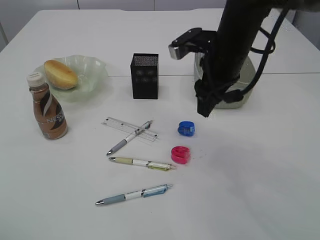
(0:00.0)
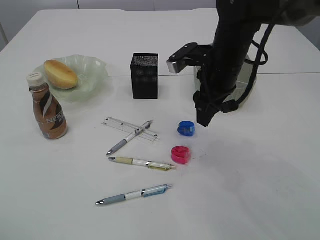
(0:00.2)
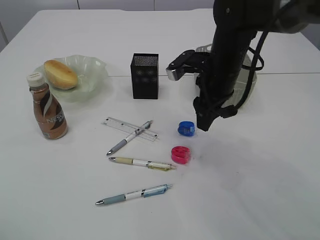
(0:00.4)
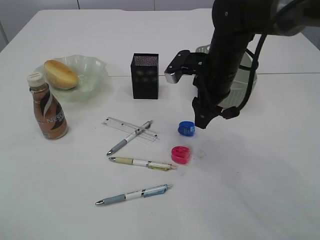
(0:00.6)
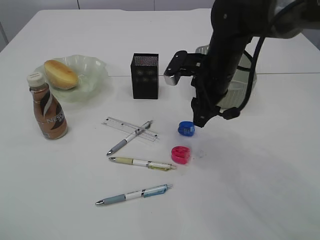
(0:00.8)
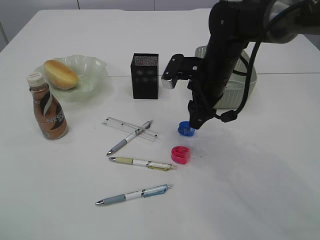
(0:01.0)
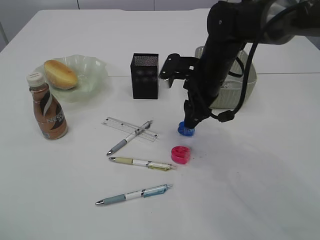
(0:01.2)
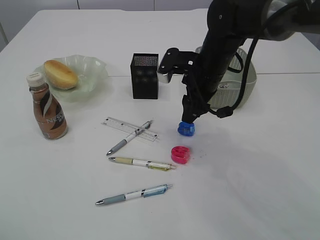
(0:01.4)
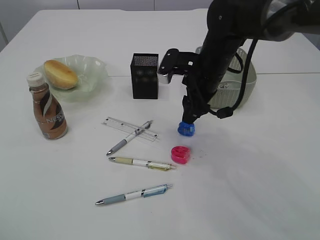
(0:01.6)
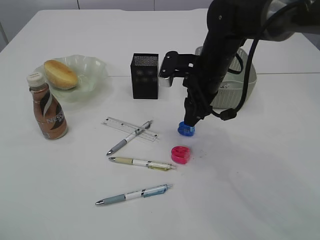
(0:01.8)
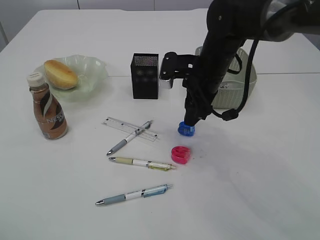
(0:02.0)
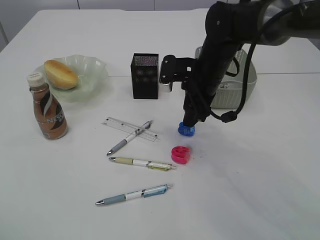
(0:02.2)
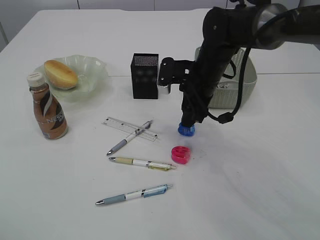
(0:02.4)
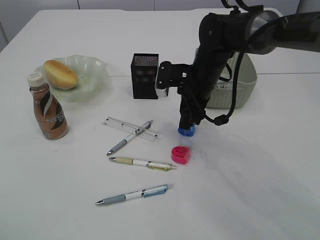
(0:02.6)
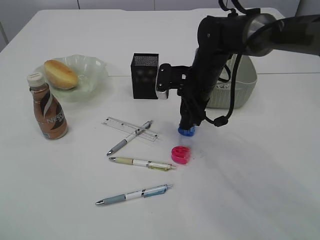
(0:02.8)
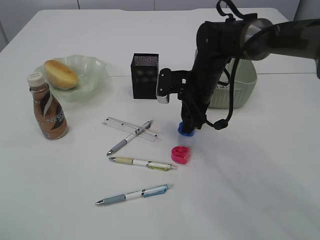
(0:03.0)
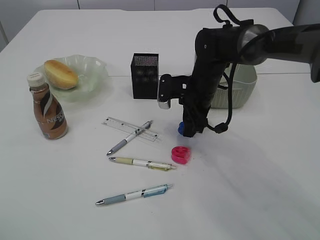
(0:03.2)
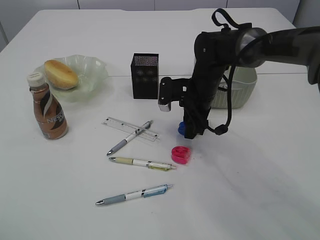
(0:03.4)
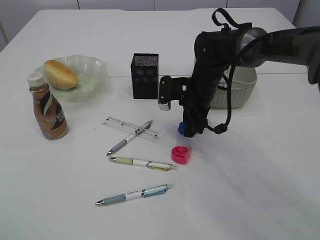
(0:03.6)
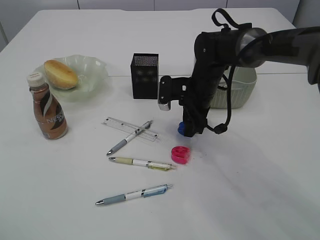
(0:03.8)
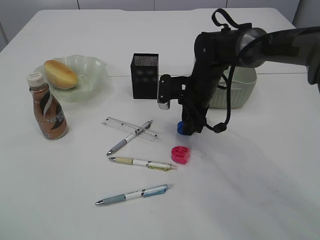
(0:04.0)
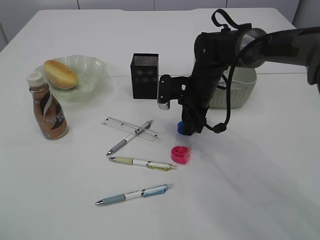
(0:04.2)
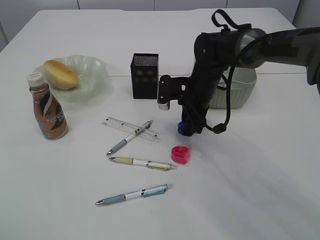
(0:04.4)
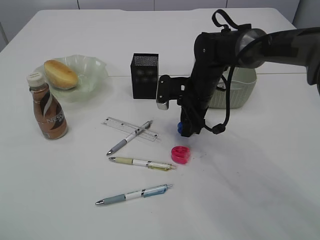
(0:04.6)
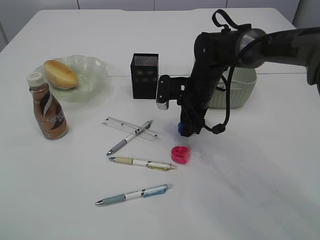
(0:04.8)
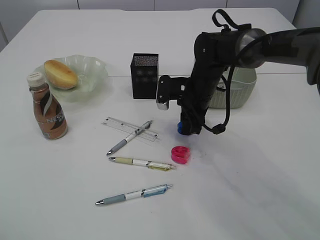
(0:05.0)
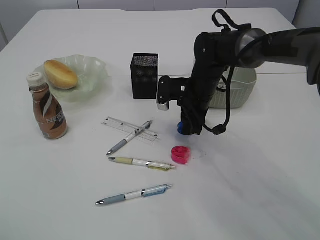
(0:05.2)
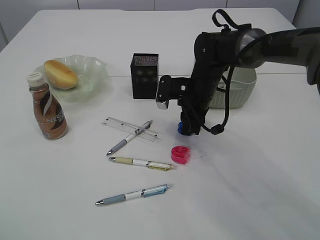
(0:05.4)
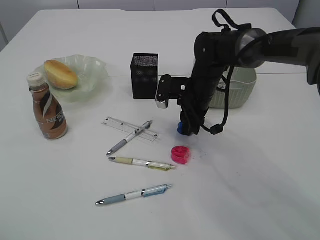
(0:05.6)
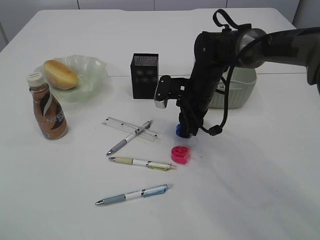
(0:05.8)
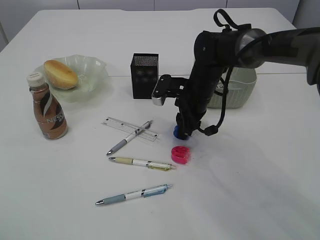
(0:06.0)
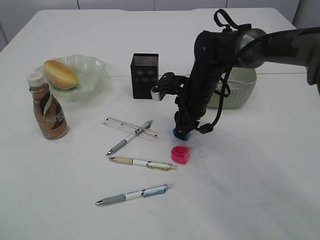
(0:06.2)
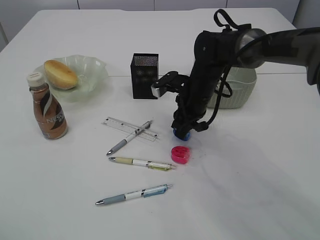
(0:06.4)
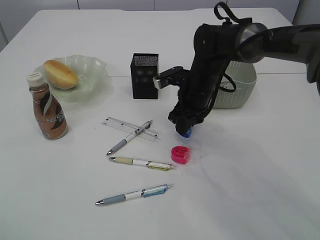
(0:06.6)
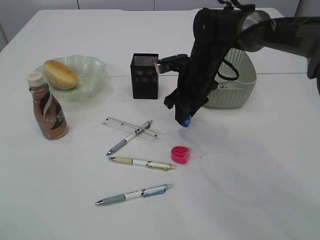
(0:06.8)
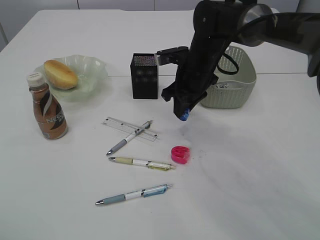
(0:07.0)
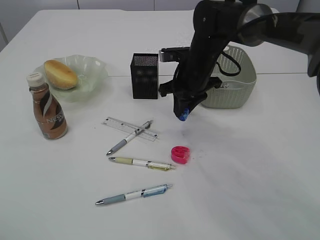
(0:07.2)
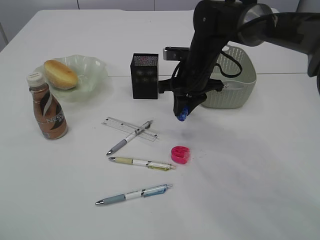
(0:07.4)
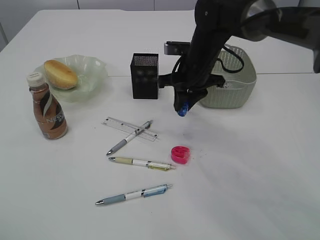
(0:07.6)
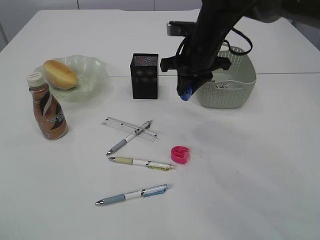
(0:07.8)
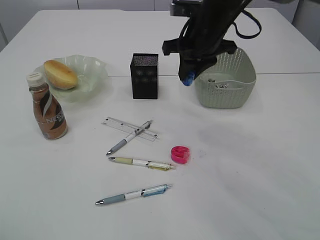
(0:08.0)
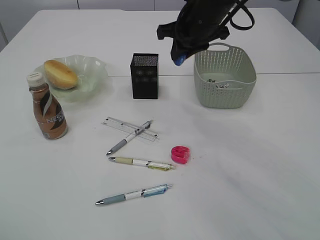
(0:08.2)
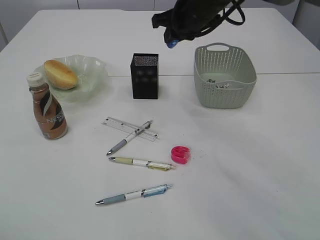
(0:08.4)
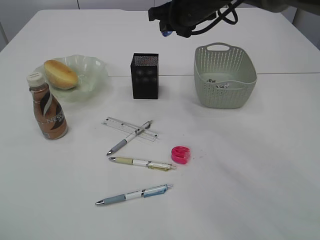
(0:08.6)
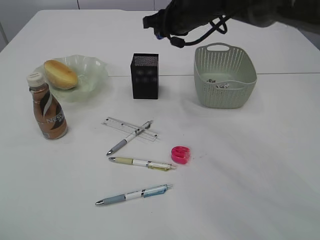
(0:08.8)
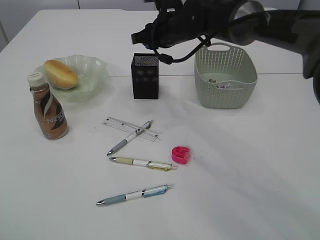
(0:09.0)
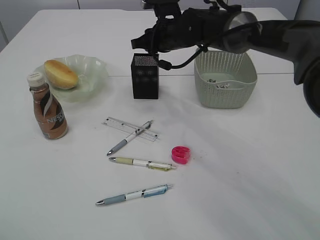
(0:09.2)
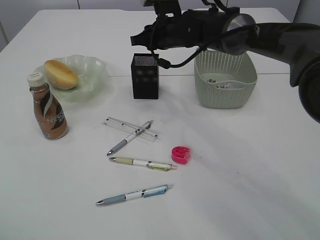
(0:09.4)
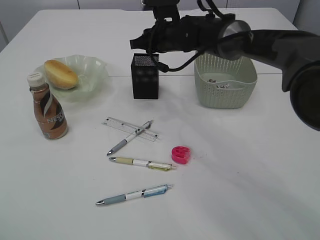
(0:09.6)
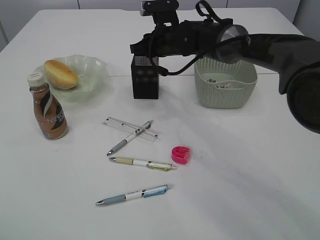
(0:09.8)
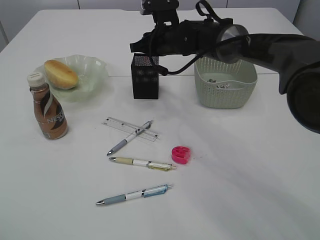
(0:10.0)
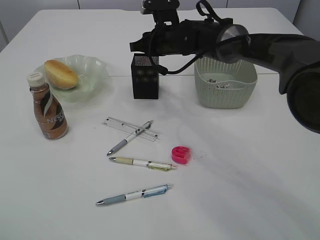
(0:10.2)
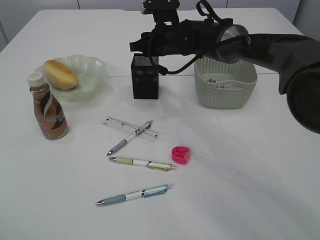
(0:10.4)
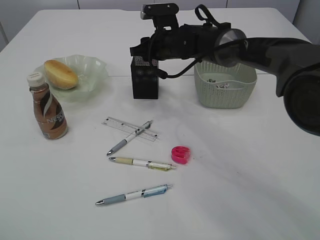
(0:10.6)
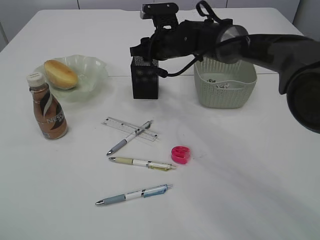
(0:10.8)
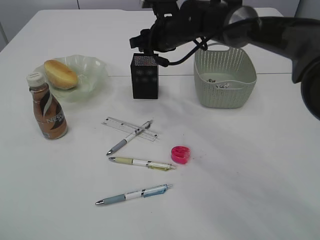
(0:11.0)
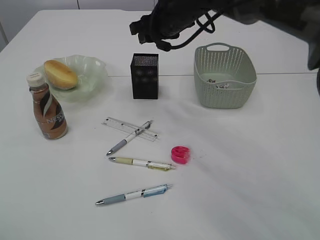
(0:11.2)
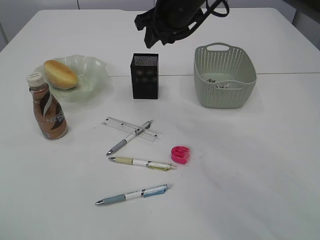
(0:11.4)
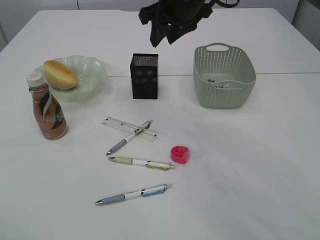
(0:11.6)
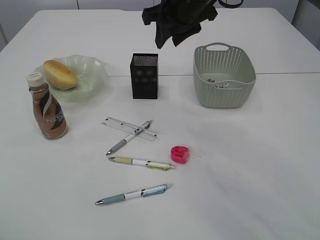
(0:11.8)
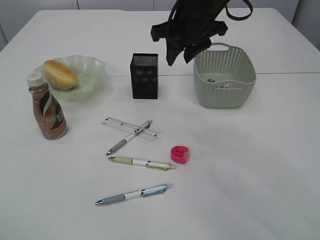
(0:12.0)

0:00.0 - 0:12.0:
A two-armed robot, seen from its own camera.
Step, 0:00.0 - 0:07.0: Pick up the blue pencil sharpener.
Step, 0:07.2 - 0:11.0: Place the blue pencil sharpener into the pen holder.
0:00.0 - 0:01.6: The right gripper moves downward, about 5 cm.
0:01.6 - 0:03.0: The right gripper moves about 5 cm.
0:03.0 - 0:04.4: The grippers stay close to where they were, moving slightly.
0:04.4 - 0:06.0: The right gripper closes.
0:06.0 - 0:07.6: The right gripper is displaced upward by about 5 cm.
0:07.6 - 0:09.0: The right gripper moves forward, approximately 5 cm.
0:09.0 - 0:10.4: The grippers move only a little.
0:10.4 - 0:12.0: The right gripper heads upward and backward, covering about 15 cm.

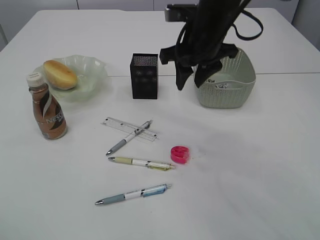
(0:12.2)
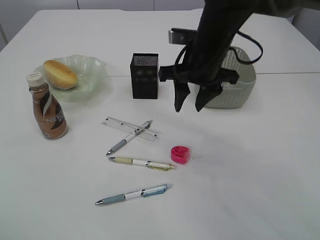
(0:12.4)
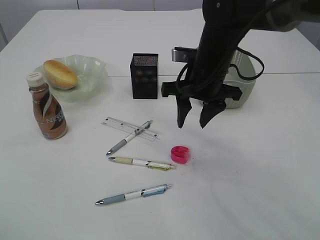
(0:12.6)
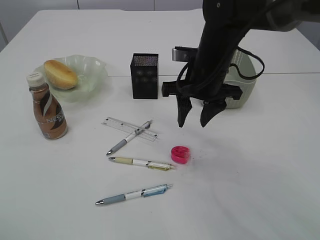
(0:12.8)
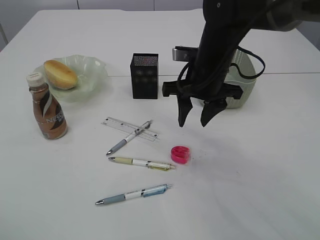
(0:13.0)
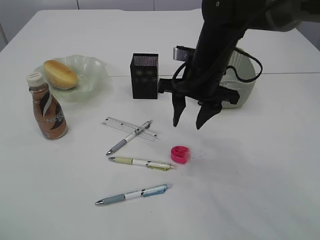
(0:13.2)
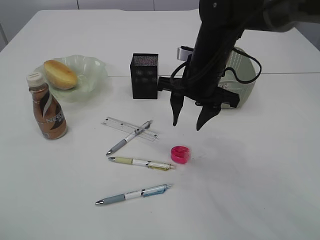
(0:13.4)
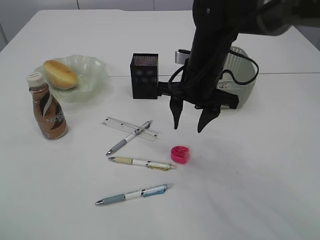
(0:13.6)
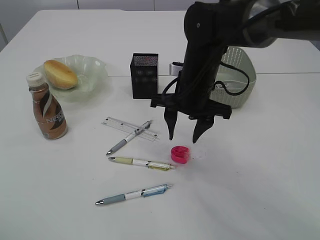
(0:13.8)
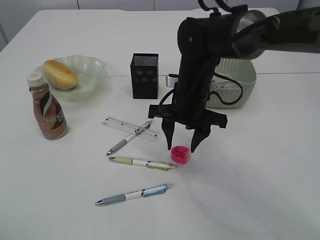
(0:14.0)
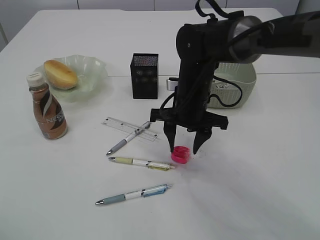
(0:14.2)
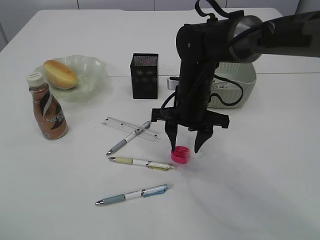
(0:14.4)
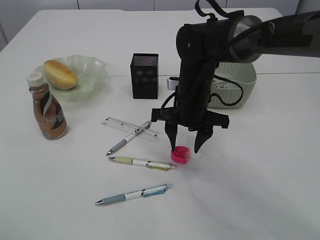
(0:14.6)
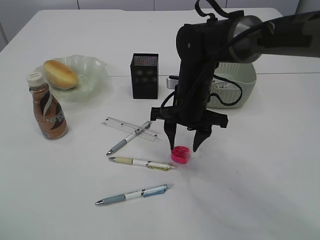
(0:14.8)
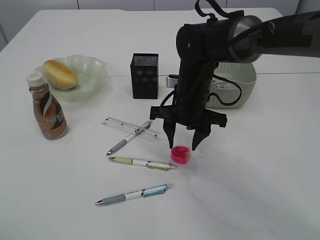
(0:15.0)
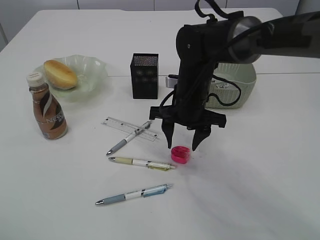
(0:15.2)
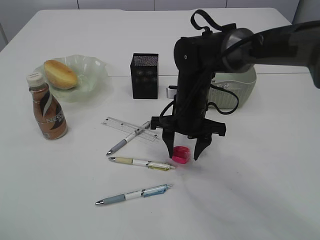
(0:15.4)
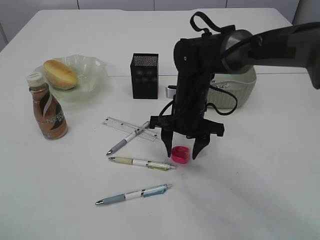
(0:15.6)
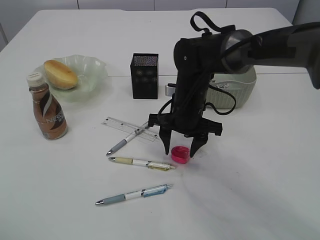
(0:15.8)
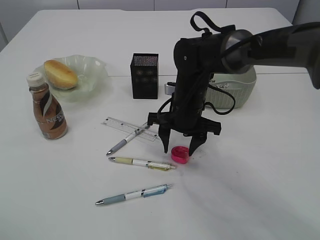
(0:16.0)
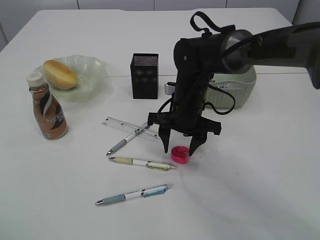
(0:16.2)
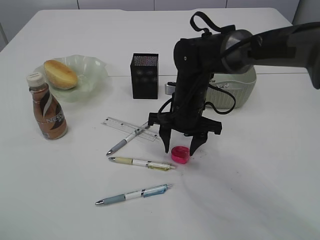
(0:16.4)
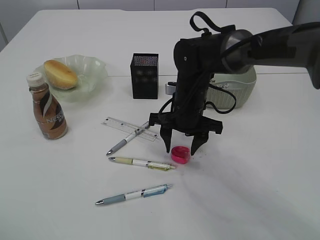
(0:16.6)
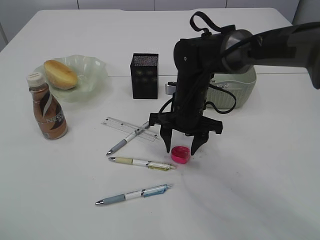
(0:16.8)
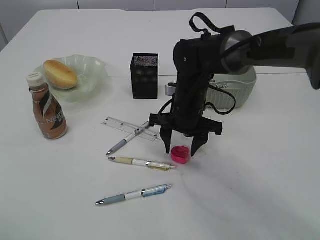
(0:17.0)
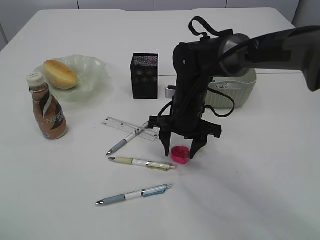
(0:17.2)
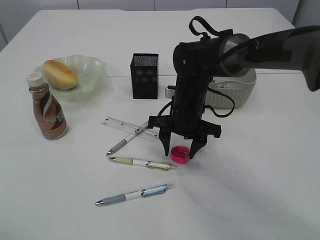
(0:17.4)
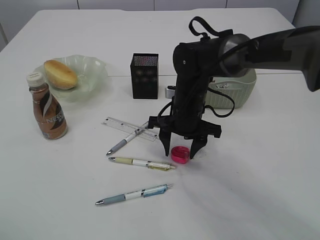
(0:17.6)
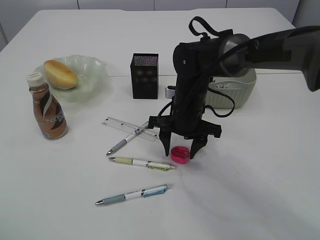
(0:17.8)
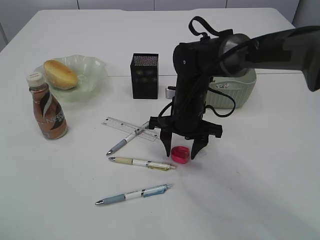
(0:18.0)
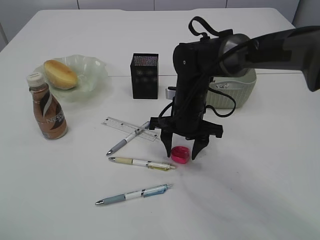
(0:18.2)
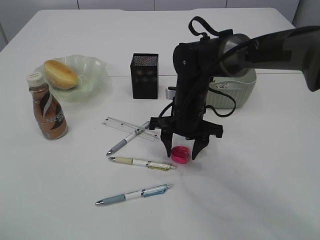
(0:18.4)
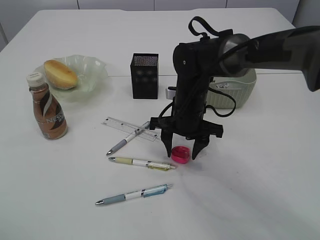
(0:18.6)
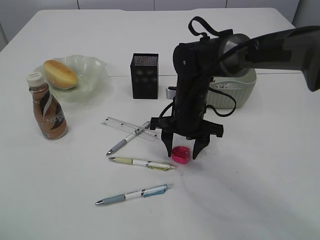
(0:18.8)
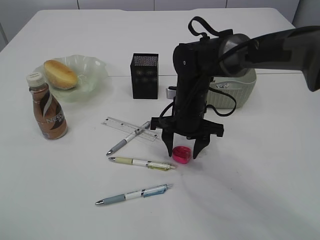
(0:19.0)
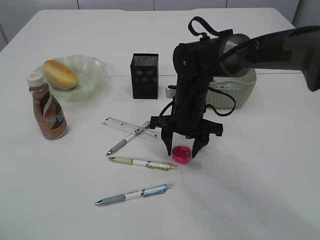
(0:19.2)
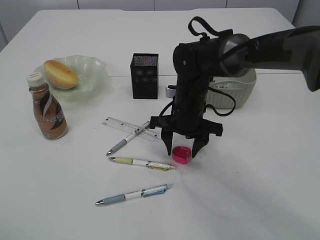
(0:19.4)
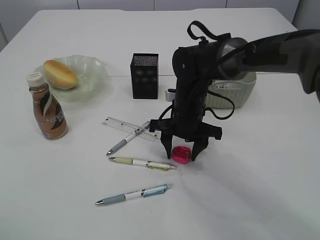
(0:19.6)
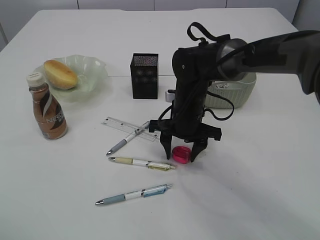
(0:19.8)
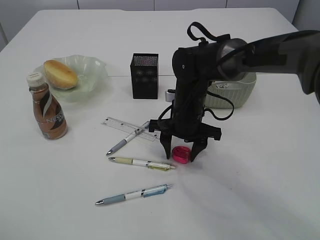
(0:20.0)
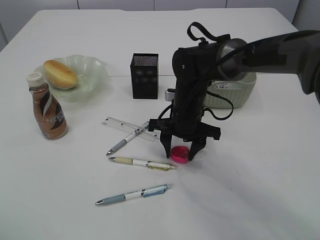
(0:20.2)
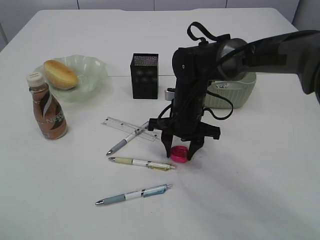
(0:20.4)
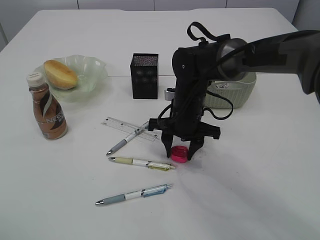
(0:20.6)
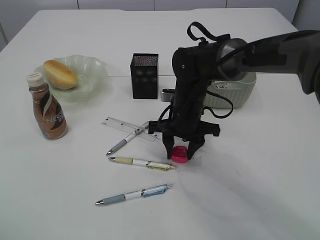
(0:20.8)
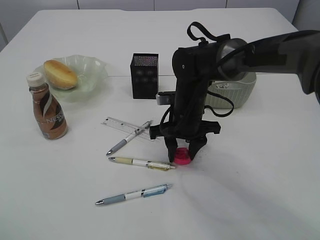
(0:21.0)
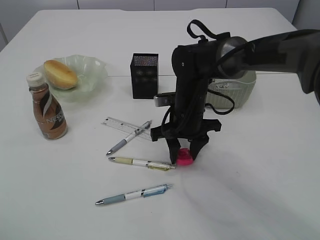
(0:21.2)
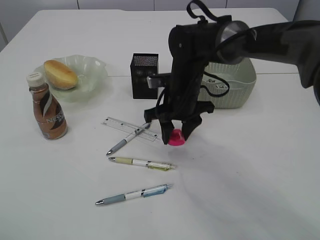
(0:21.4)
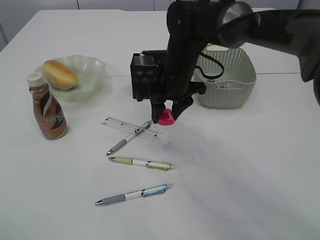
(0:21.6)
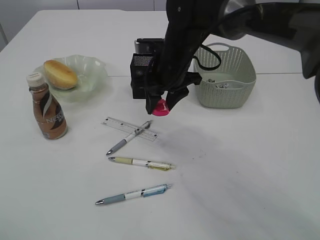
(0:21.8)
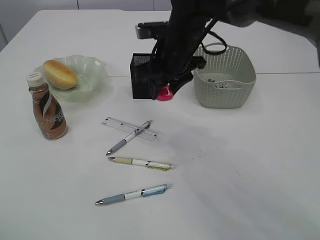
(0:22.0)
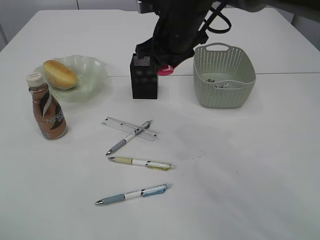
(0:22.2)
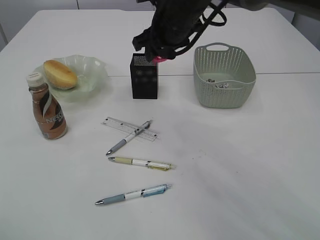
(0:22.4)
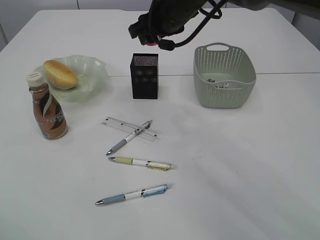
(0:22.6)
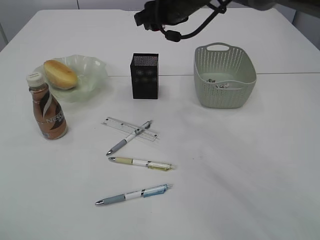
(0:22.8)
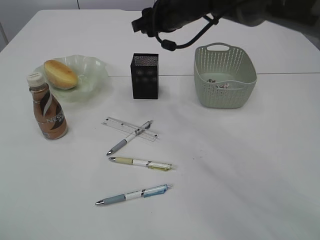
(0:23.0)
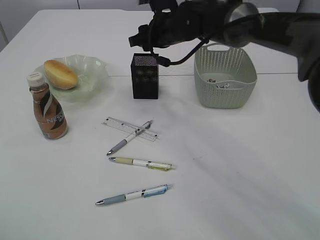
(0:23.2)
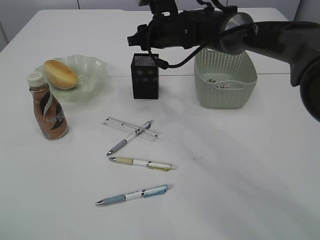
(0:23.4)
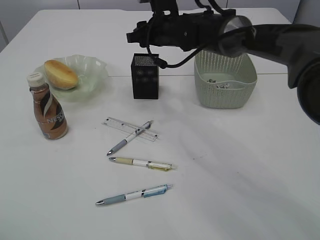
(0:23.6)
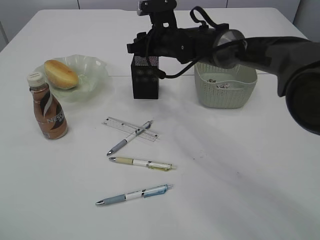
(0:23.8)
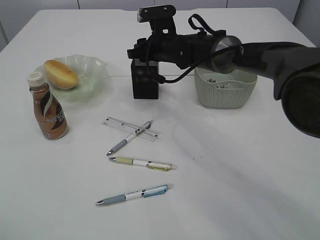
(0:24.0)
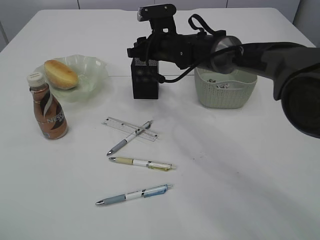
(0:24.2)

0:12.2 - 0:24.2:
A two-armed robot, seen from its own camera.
Step, 0:12.2 - 0:21.8: Pick up the red pencil sharpener.
0:12.2 - 0:13.8: The right gripper shifts some 10 cm downward.
0:13.8 - 0:16.6: The grippers make only small movements.
0:16.6 - 0:18.2: Both grippers stay about where they are.
0:18.2 - 0:19.8: Neither gripper changes place.
0:21.2 - 0:22.6: The right gripper heads upward, covering roughly 15 cm.
0:22.6 - 0:24.2: The right gripper is displaced downward and forward by about 10 cm.
